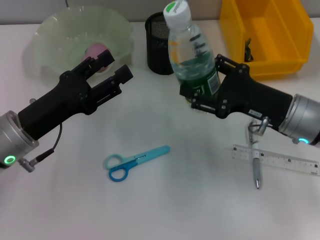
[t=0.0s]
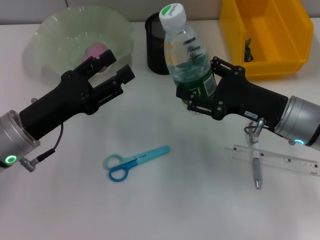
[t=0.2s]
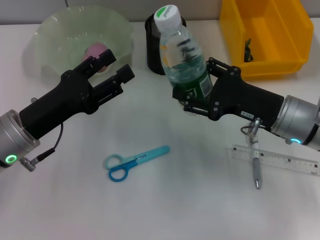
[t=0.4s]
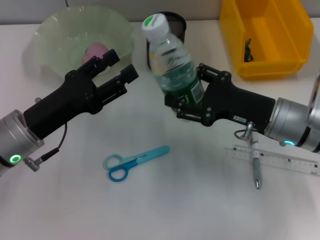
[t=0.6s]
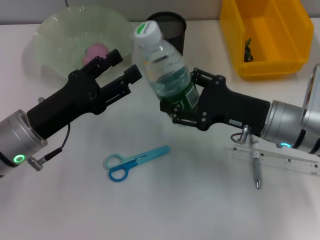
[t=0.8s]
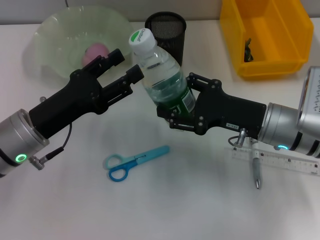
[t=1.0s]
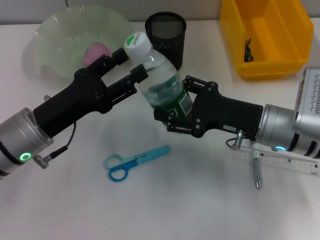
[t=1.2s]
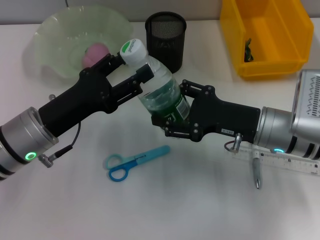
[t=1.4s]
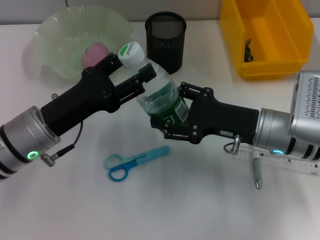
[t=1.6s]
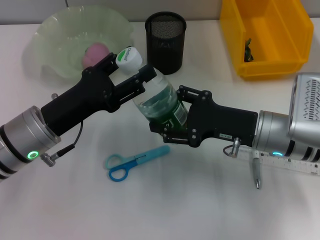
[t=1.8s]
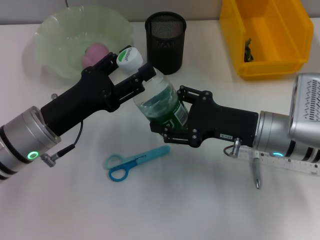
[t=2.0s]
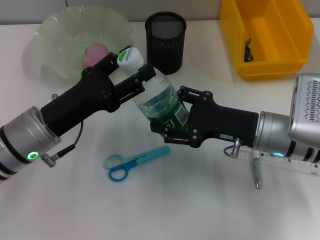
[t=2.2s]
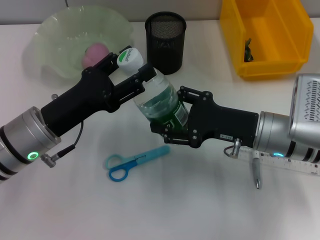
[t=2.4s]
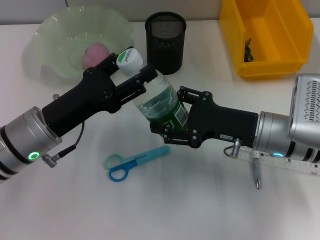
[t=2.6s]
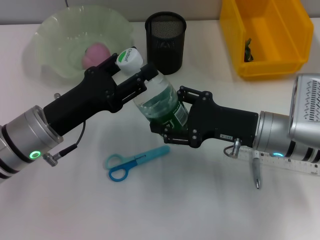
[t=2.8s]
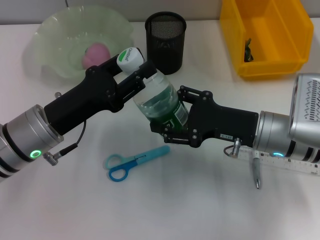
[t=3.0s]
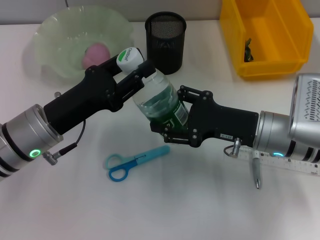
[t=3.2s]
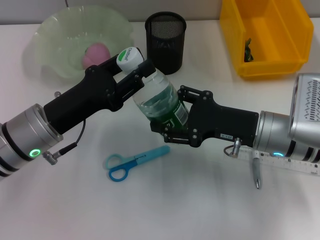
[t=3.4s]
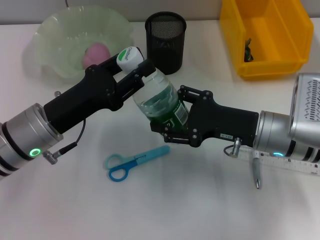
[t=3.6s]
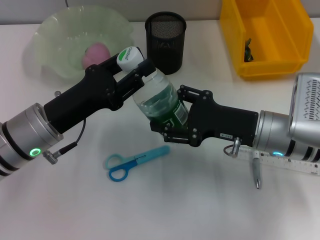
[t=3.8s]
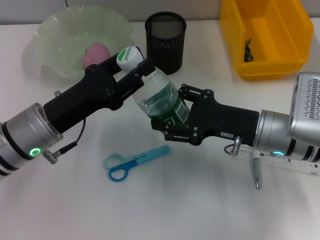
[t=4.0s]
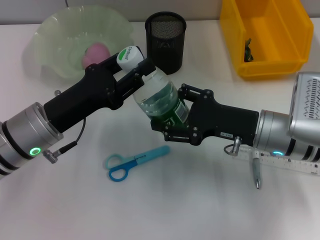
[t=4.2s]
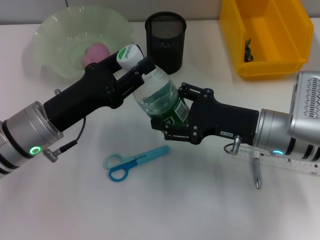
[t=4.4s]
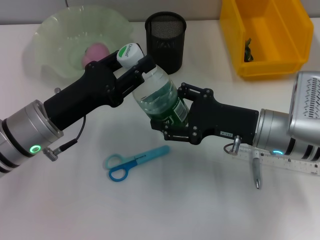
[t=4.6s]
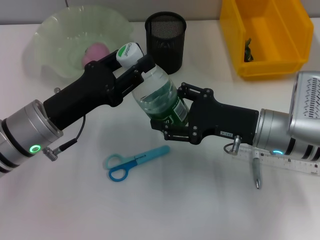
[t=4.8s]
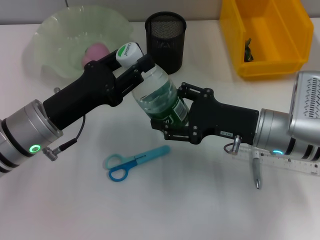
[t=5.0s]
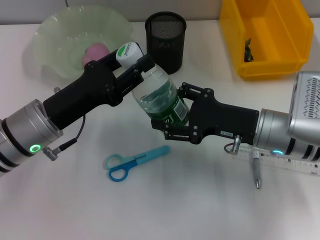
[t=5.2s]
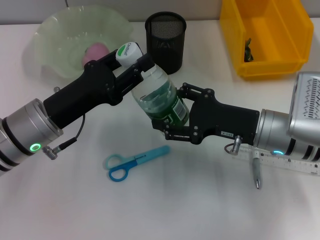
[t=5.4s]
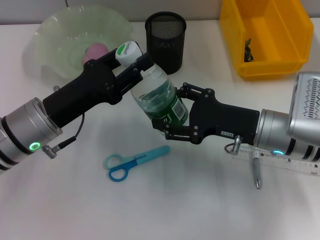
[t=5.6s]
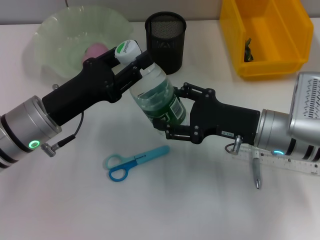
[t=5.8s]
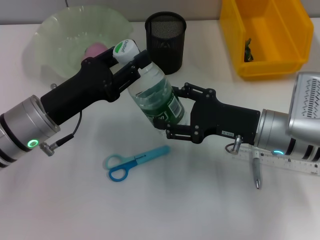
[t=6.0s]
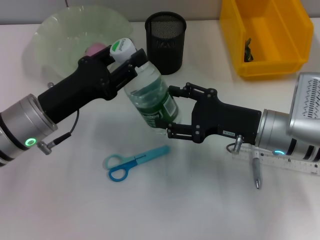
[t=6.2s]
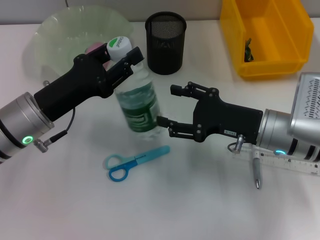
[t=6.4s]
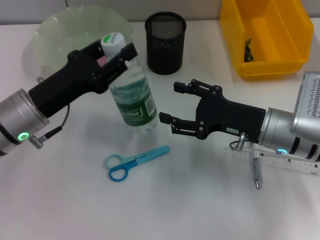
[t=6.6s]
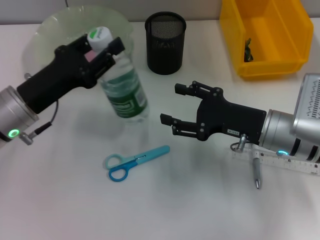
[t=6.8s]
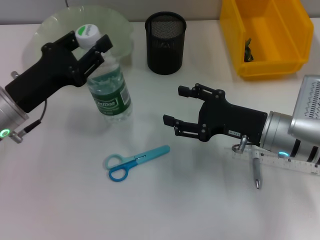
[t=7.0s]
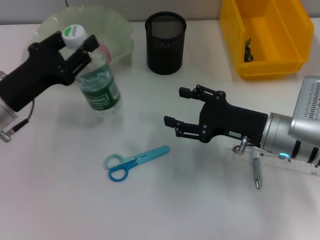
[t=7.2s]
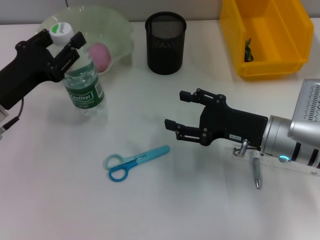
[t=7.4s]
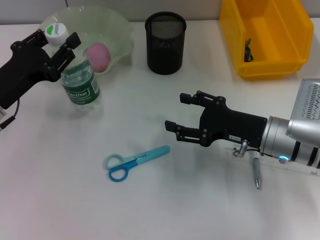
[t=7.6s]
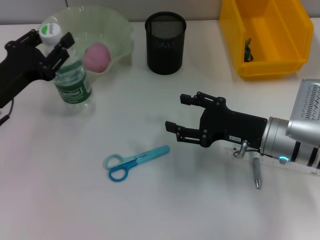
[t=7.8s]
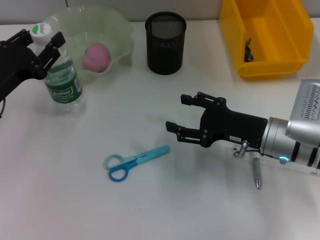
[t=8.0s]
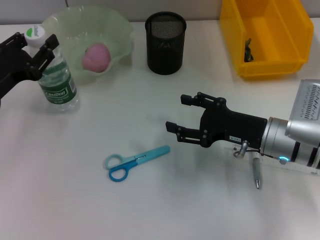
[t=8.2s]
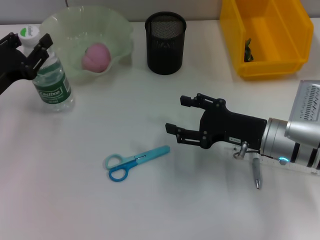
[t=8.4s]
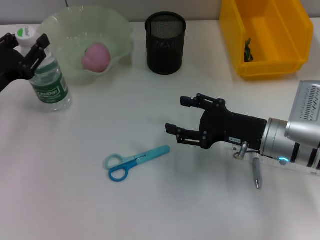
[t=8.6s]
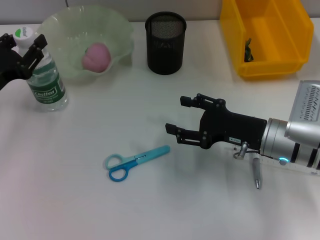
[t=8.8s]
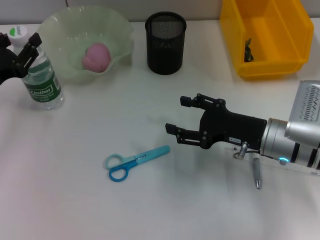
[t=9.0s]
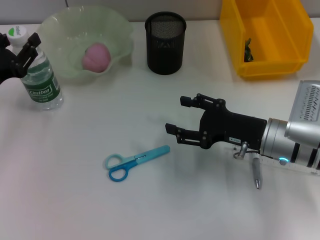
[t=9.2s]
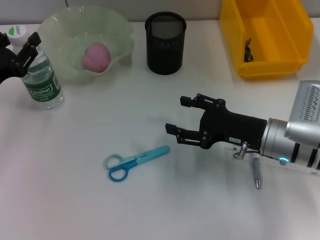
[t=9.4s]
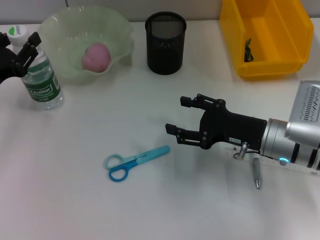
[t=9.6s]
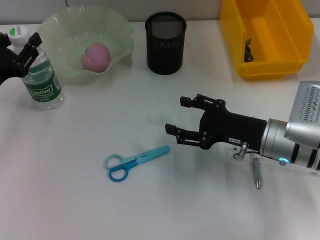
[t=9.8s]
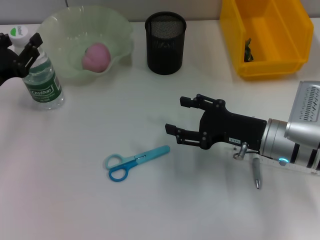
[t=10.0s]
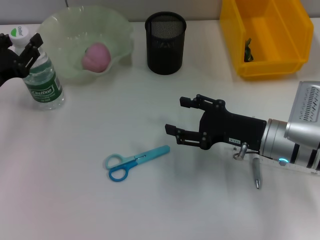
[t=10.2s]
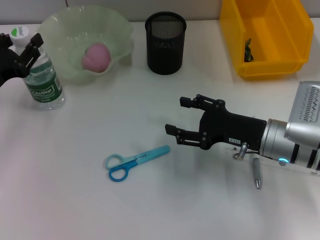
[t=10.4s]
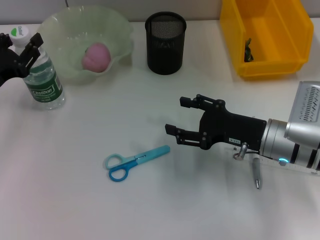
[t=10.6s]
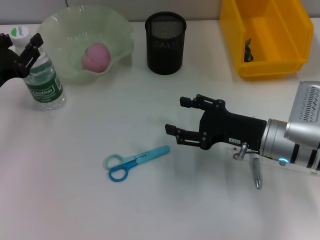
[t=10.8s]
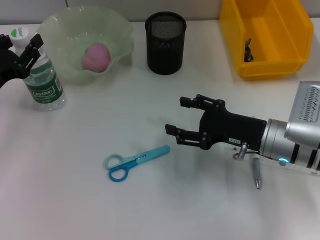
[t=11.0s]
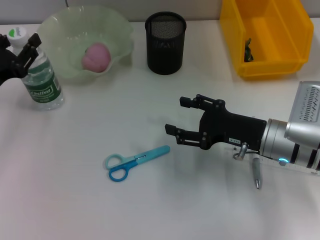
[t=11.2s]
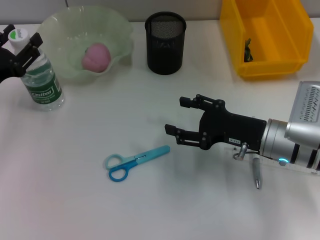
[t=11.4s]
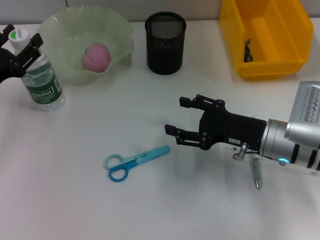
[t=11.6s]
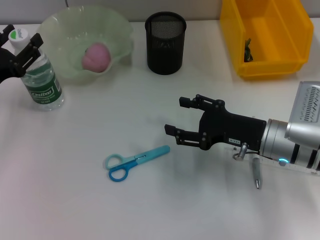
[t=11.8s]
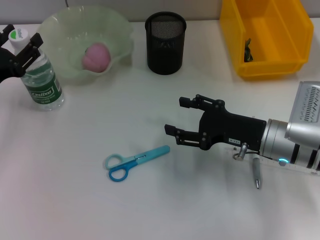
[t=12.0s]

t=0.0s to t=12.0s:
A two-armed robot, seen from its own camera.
Step, t=0.0s to t=6.0s: Pass the water bottle from the right hand to the left hand.
t=1.6s to t=6.0s: Neither gripper changes place.
t=6.0s to t=7.6s: The left gripper is displaced to the left by about 5 cm.
t=7.6s to t=9.0s: The grippers stay close to where they were, moving slightly.
t=9.0s to t=12.0s: Both grippers stay put.

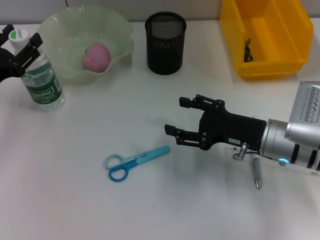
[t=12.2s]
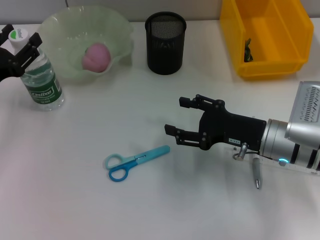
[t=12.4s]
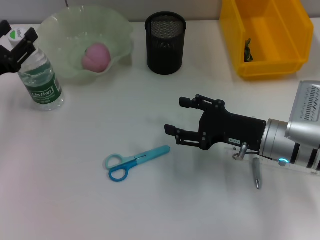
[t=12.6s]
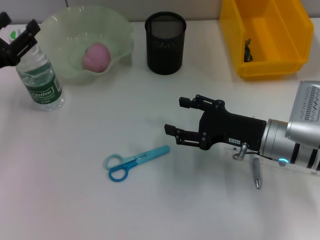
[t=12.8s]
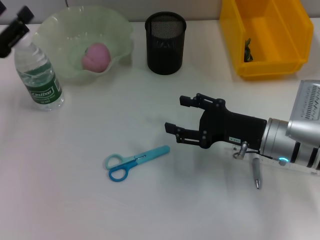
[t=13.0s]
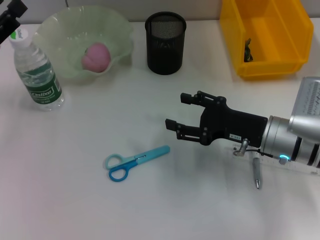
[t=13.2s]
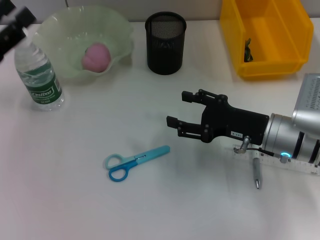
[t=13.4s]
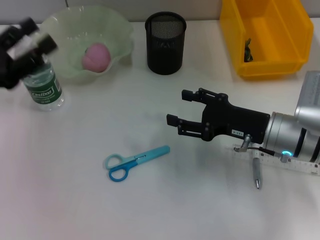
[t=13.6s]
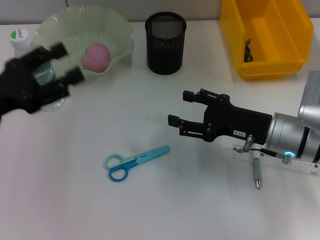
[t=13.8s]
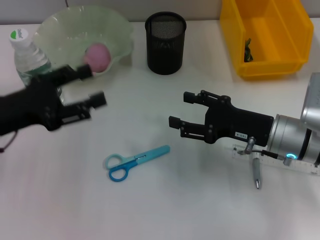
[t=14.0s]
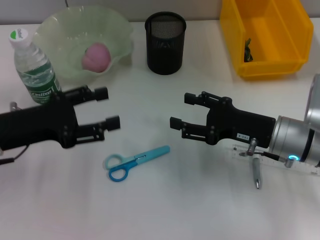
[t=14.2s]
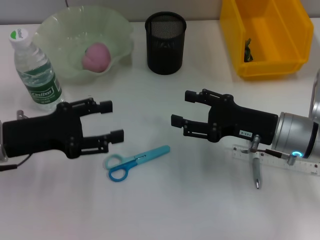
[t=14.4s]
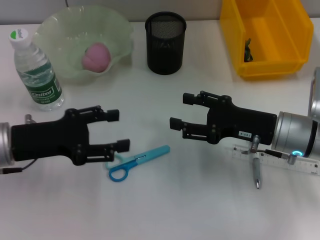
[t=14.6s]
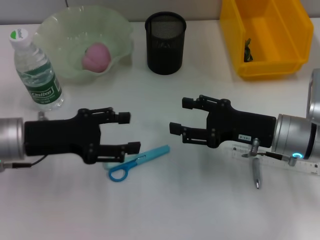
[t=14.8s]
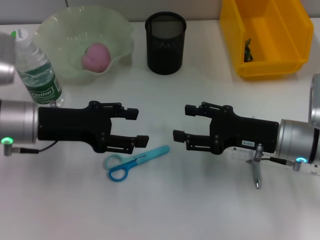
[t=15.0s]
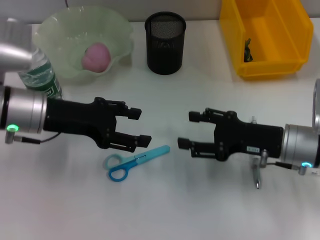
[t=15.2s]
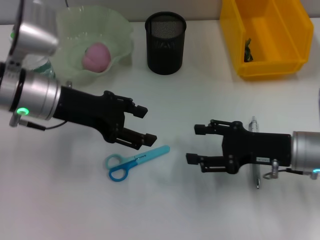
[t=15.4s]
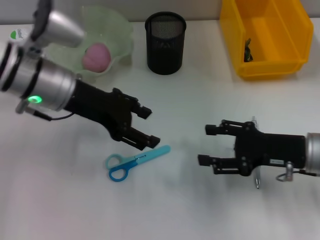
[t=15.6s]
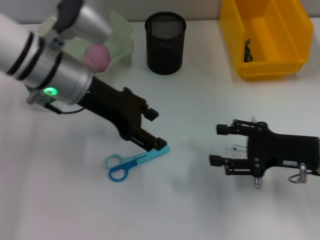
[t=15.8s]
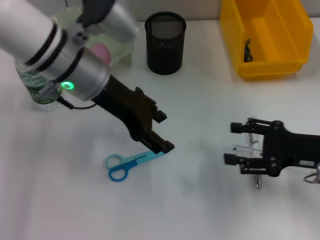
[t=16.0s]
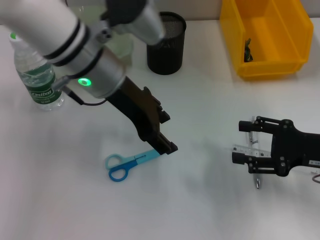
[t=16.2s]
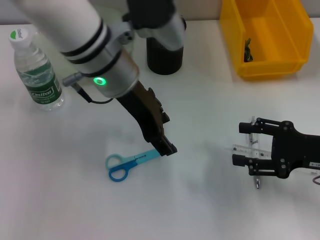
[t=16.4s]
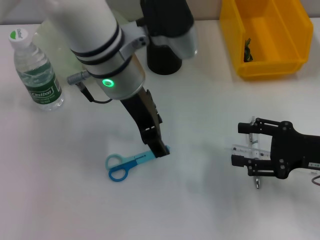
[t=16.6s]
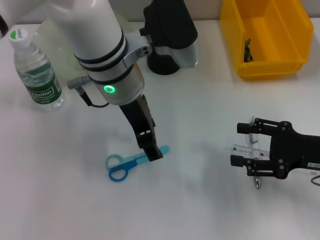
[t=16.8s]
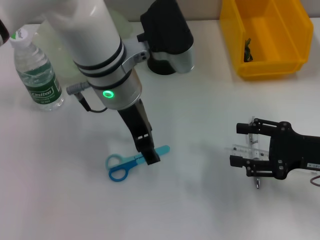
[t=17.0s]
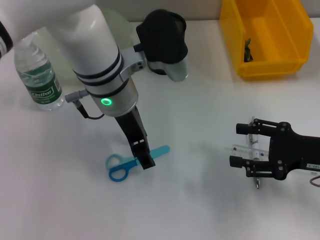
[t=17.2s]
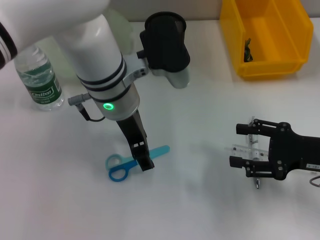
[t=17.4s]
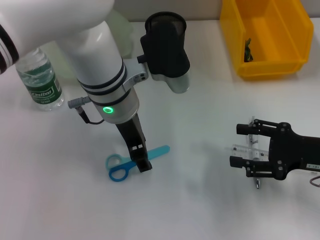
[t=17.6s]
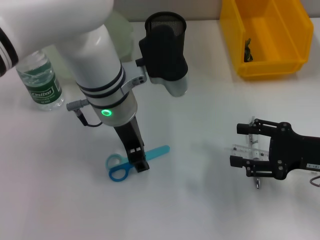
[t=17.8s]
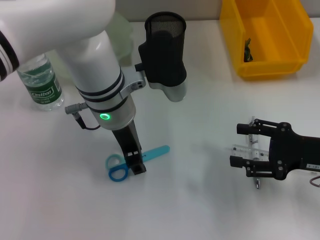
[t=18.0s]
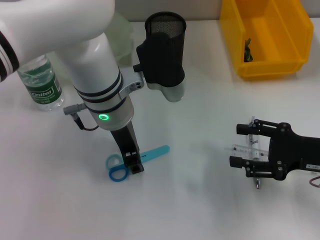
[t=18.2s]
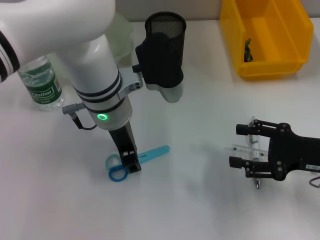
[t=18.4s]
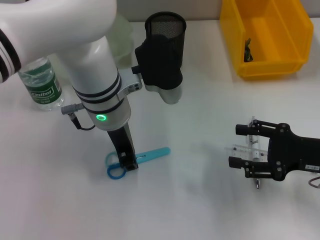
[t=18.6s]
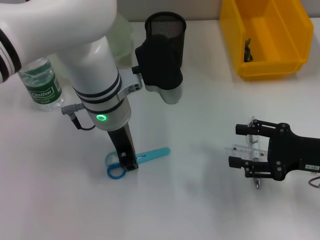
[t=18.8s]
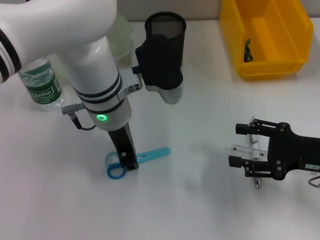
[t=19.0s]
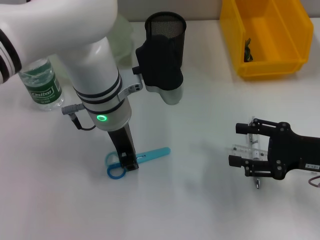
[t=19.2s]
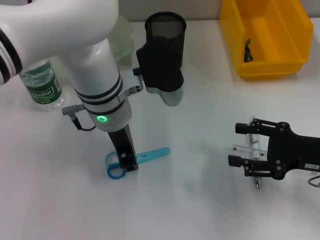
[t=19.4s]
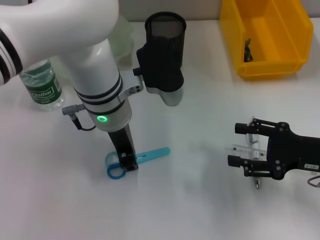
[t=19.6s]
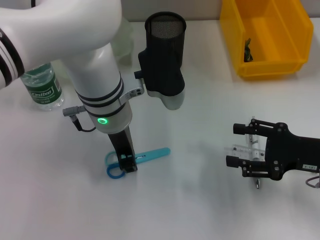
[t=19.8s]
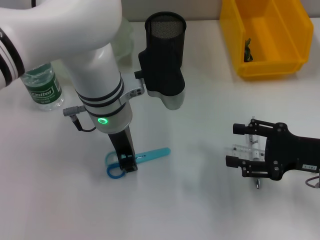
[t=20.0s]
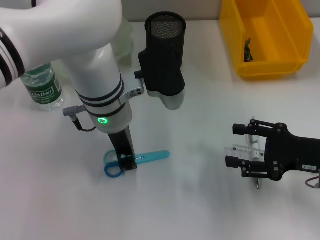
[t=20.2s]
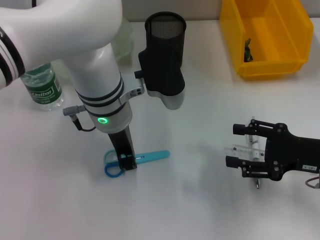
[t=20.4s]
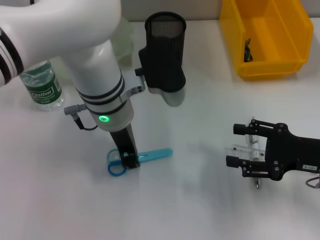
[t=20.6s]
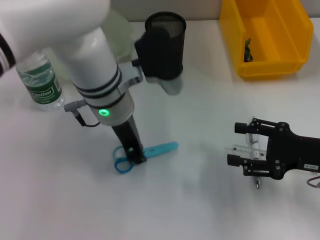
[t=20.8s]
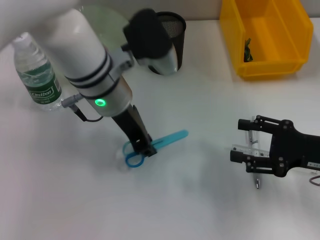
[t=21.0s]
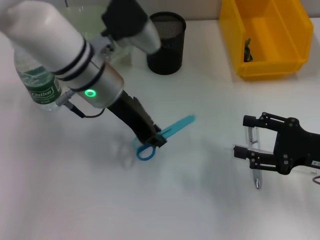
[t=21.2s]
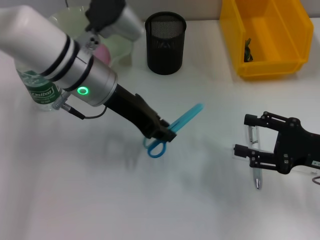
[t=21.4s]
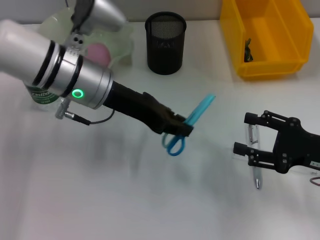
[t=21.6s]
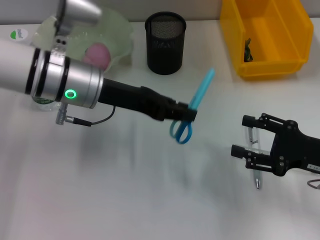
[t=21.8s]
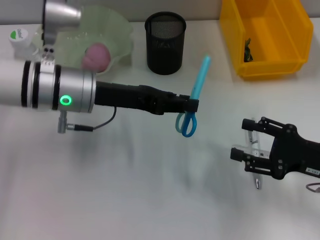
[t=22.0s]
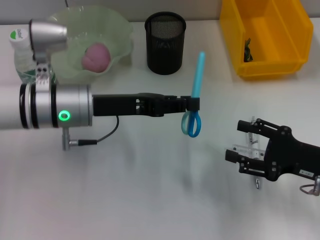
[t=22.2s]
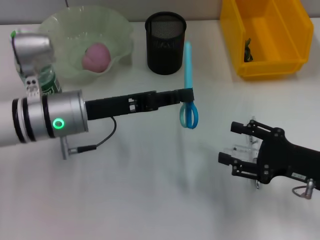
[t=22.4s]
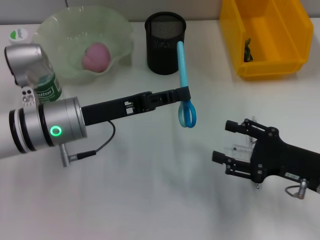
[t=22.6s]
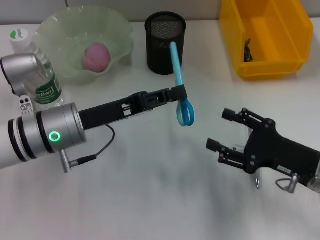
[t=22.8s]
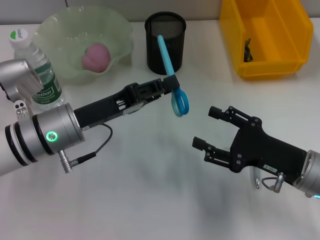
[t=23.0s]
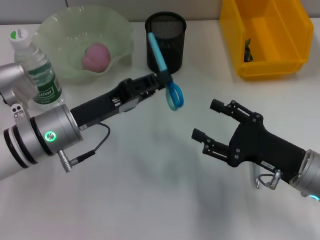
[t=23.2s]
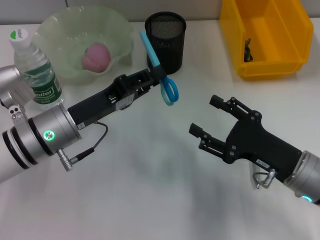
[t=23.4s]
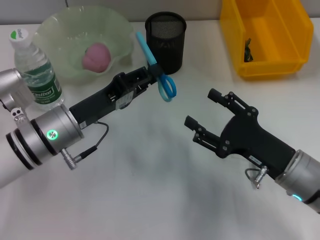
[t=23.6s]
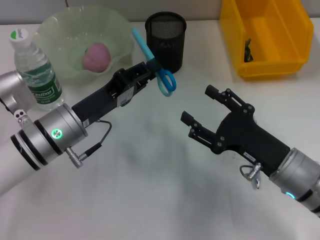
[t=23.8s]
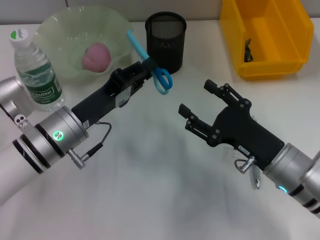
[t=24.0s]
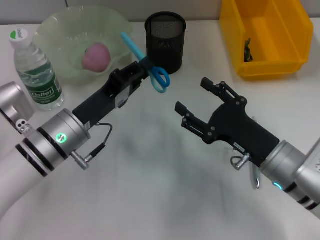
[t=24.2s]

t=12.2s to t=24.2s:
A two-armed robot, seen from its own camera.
Step, t=13.0s to t=20.0s: Grab the blue scissors with the left hand.
t=12.2s to t=13.8s: The left gripper ends up some 5 cm from where it was.
t=13.8s to t=15.2s: The left gripper shifts about 10 cm to the right and forward.
t=15.2s to t=16.6s: The right gripper heads to the right, covering some 10 cm; the left gripper heads to the right and upward, covering some 15 cm.
t=16.6s to t=18.2s: The left gripper goes roughly 5 cm downward.
t=18.2s to t=19.8s: Both grippers stay put.
t=21.2s to t=22.6s: The left gripper goes approximately 10 cm downward, to the left and backward.
t=22.6s to t=24.2s: The right gripper is displaced to the left by roughly 10 cm.
